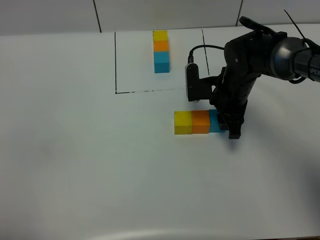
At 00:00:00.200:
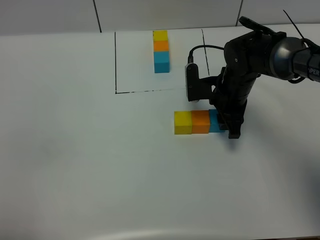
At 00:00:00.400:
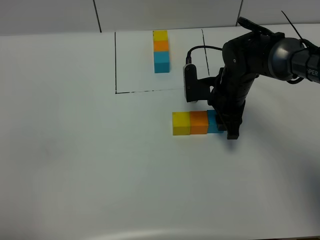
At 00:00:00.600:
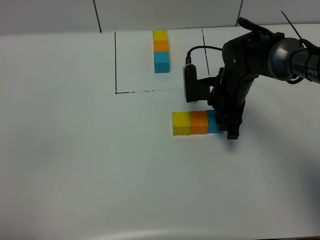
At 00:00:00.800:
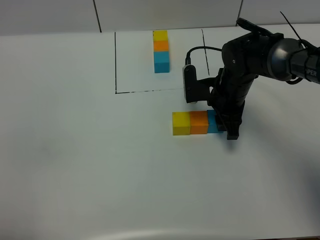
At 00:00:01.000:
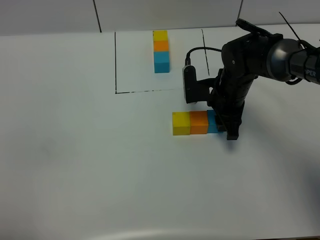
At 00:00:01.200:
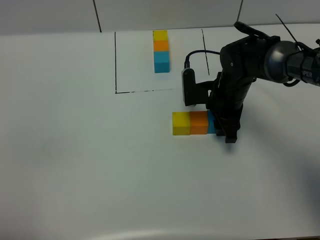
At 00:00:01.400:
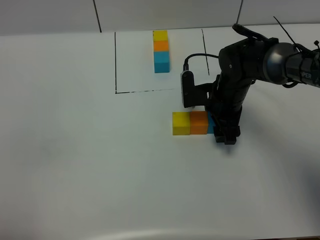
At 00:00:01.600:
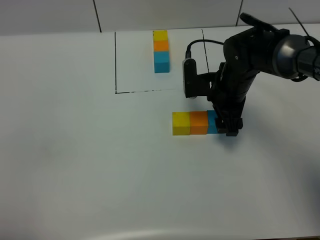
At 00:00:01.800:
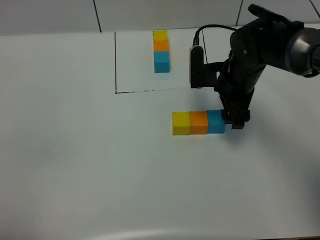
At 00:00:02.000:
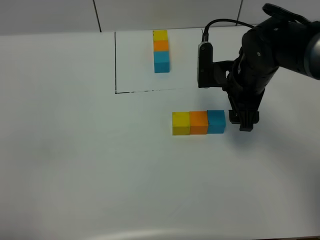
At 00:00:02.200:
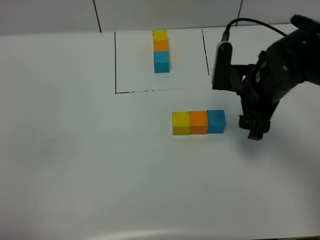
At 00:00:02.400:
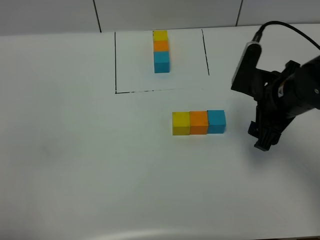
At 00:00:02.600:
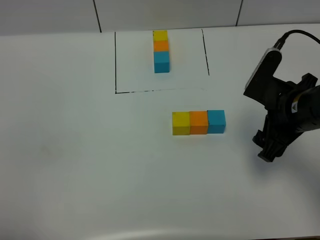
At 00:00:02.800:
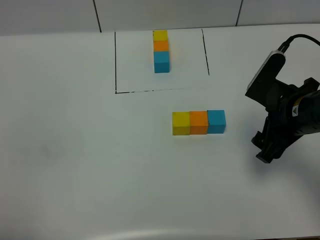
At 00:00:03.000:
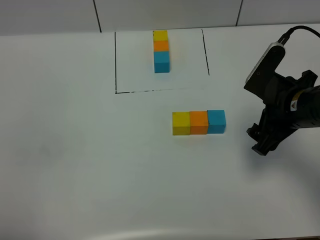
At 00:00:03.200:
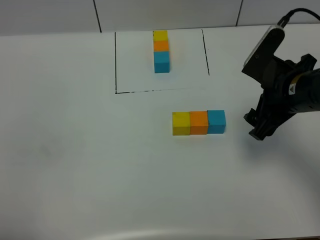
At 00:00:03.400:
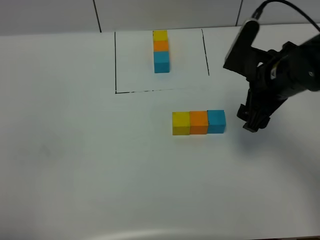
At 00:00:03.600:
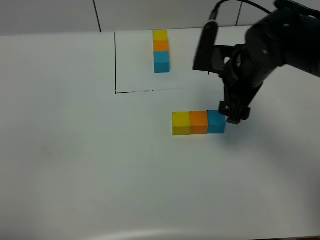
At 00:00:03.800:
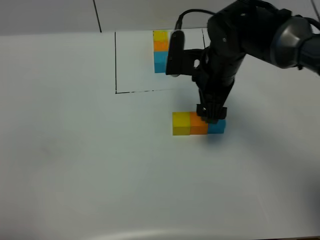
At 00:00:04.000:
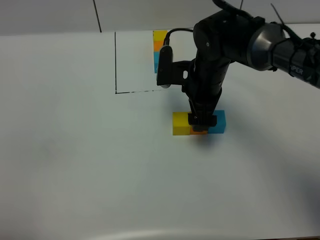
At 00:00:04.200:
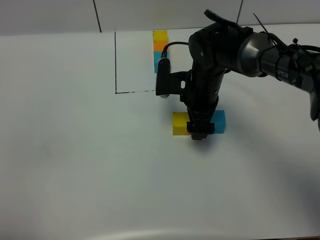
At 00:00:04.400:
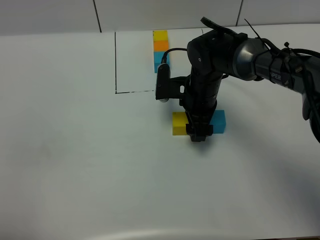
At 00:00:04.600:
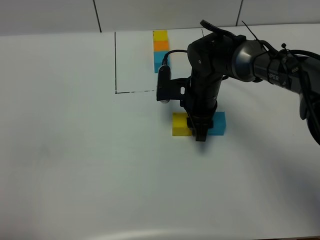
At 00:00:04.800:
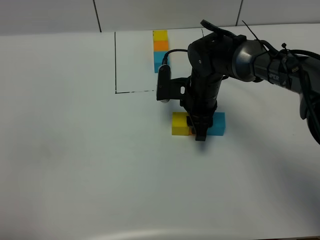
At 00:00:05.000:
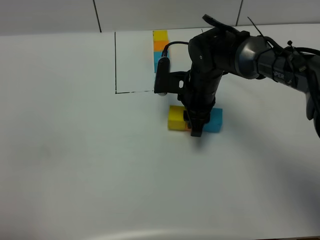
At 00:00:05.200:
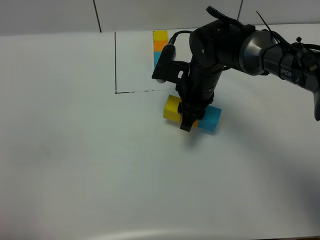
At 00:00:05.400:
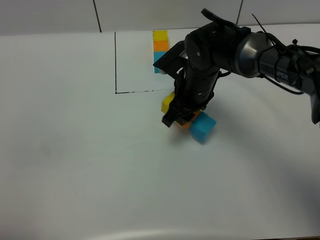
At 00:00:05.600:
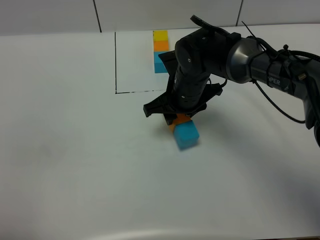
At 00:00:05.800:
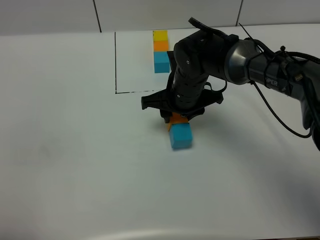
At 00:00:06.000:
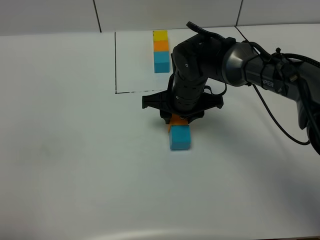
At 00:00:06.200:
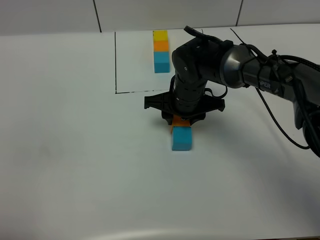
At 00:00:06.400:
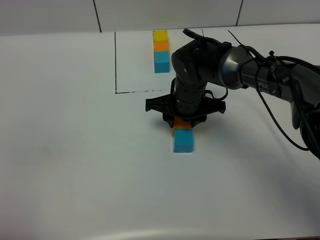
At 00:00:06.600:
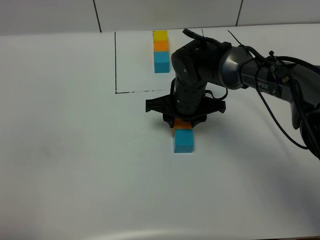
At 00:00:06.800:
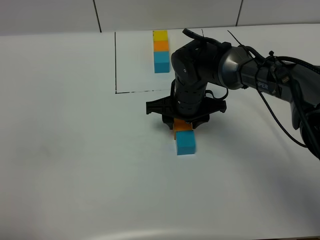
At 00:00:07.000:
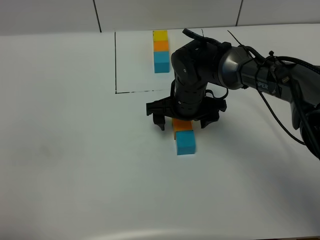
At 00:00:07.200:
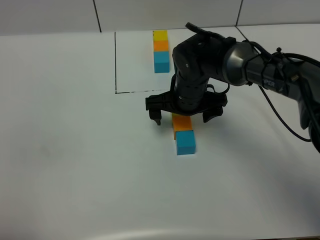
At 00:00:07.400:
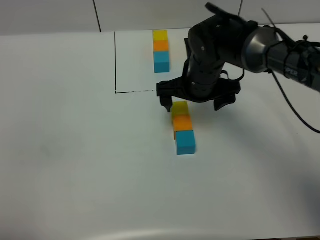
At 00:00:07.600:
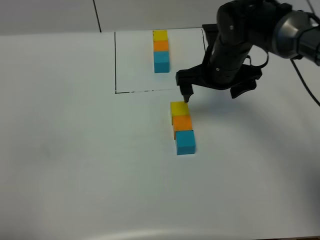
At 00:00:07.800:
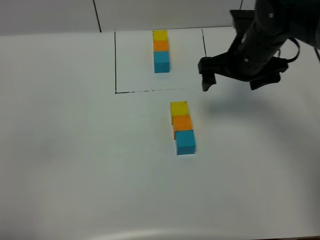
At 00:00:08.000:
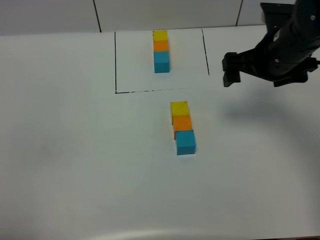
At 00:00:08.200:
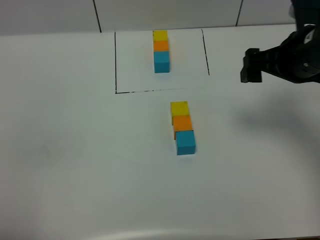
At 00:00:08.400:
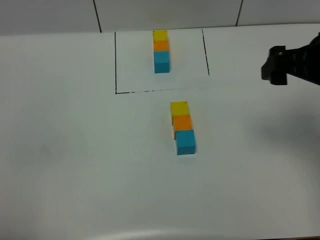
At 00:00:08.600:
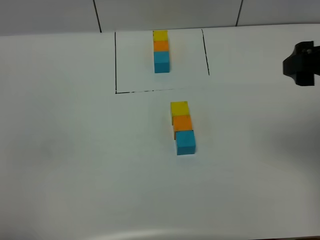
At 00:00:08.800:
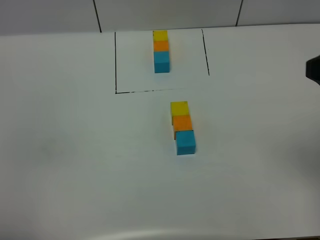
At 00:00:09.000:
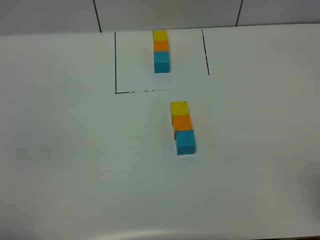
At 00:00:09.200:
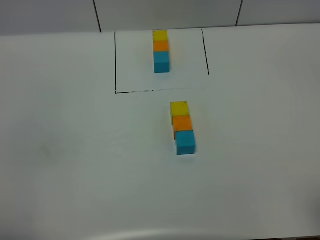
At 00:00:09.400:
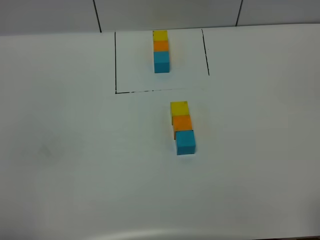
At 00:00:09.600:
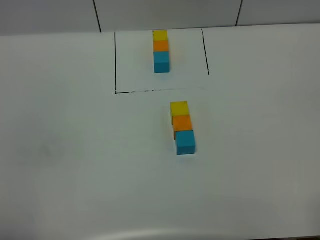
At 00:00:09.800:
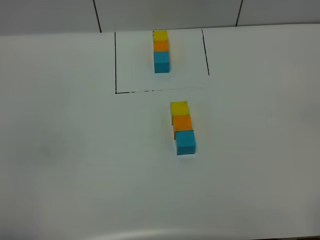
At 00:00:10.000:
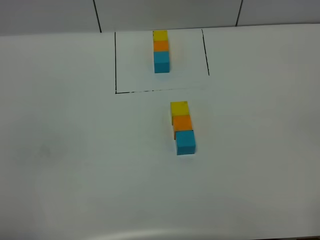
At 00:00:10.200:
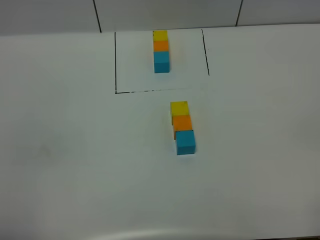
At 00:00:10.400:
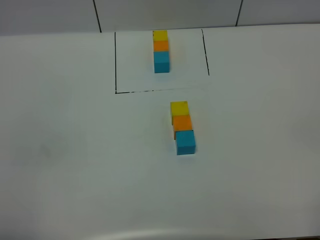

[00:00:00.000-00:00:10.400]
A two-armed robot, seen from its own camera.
Task of the whole recording: According to the building block template in front, assemble the scattered blocks together.
Step, 00:00:01.600 to 00:00:07.000: Adjust the pose of the building blocks.
00:00:00.000 to 00:00:01.400: The right gripper opens up.
00:00:01.400 to 00:00:03.000: The right gripper travels backward, upward and to the right by roughly 15 cm.
00:00:03.000 to 00:00:04.400: The right gripper shifts roughly 20 cm to the left, forward and downward.
00:00:04.400 to 00:00:06.000: The right gripper closes.
00:00:06.000 to 00:00:07.400: The right gripper ends up some 5 cm from where it was, and opens its fingers.
00:00:07.400 to 00:00:09.000: The right gripper heads backward, to the right and upward, covering some 40 cm.

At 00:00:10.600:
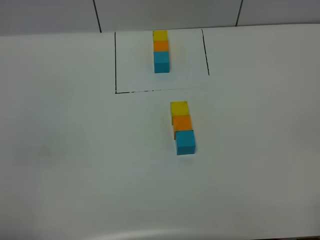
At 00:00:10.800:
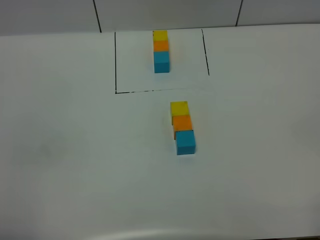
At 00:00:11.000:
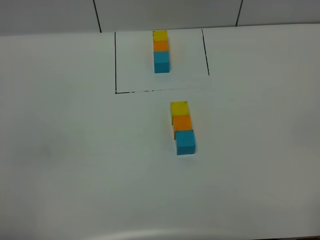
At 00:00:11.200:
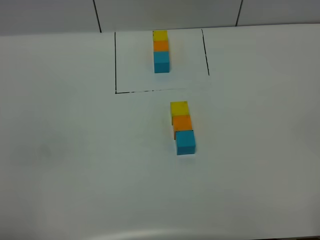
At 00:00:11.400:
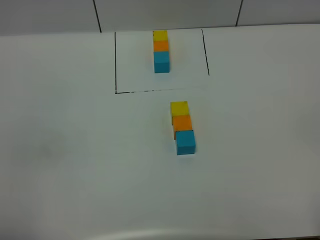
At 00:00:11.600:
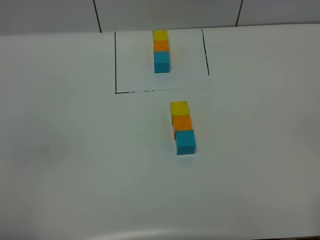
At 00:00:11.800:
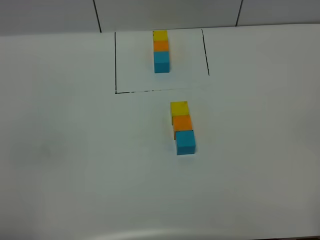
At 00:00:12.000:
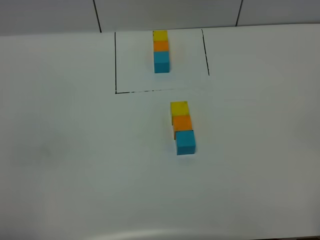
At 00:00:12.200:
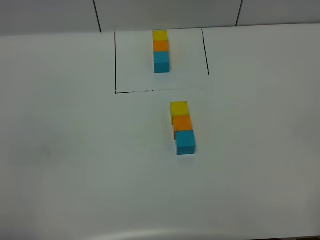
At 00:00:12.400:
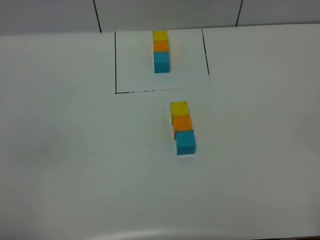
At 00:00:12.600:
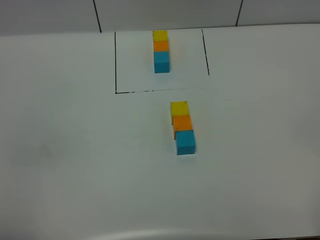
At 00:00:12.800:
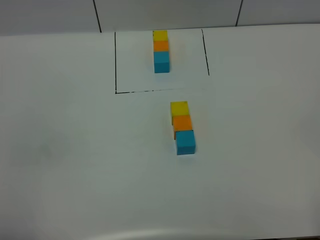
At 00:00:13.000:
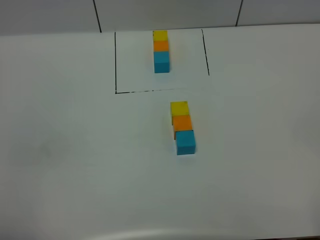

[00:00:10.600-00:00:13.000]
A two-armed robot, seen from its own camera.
Task of the whole recording: According to the building block template in front, assemble the scattered blocks together.
00:00:11.800 to 00:00:13.000: Neither gripper changes place.
